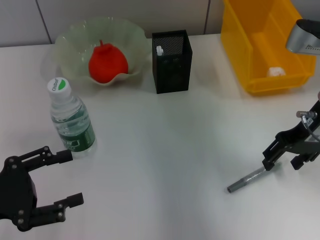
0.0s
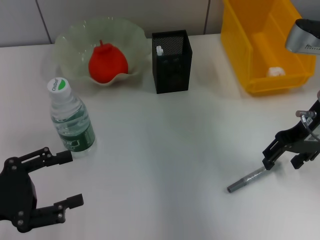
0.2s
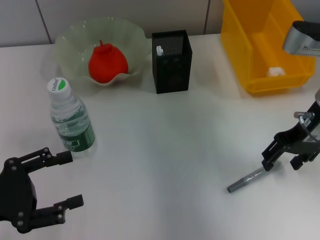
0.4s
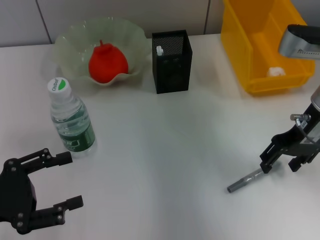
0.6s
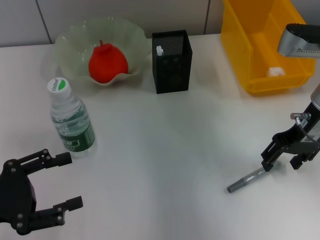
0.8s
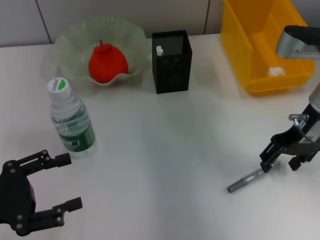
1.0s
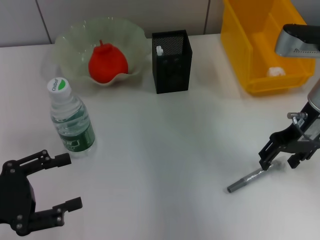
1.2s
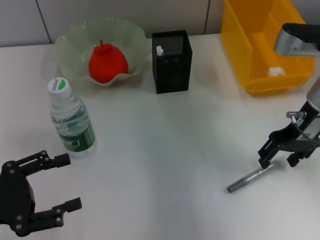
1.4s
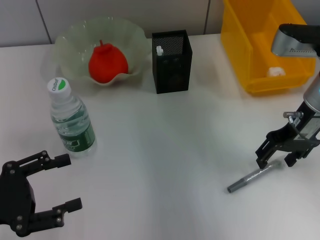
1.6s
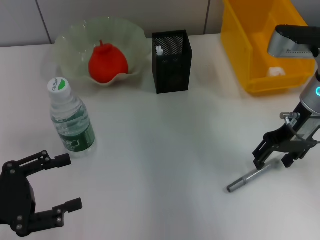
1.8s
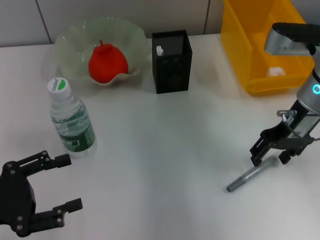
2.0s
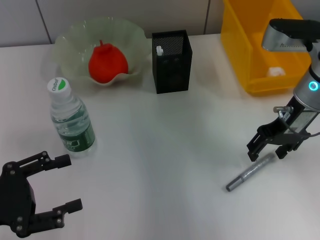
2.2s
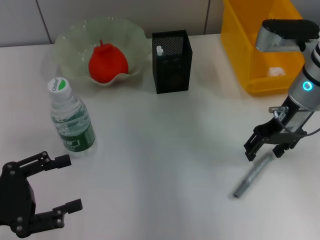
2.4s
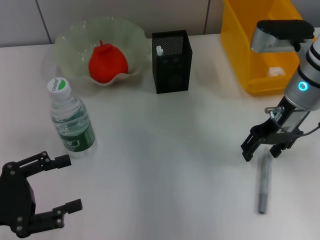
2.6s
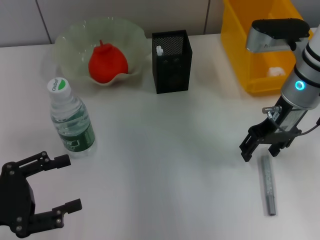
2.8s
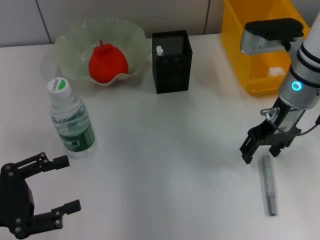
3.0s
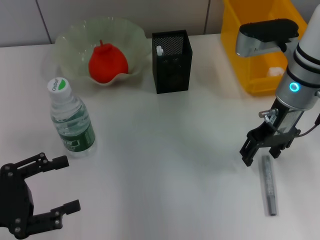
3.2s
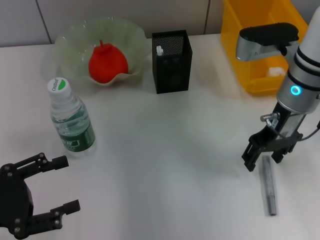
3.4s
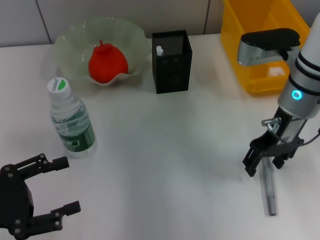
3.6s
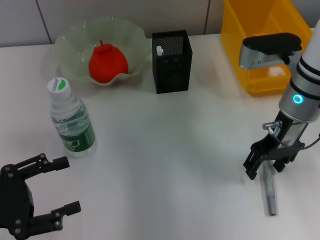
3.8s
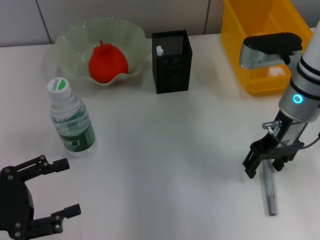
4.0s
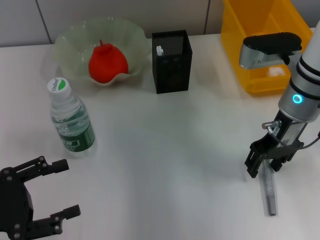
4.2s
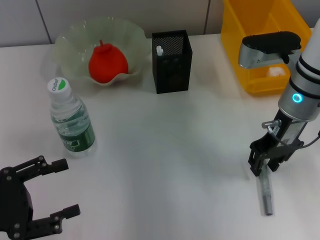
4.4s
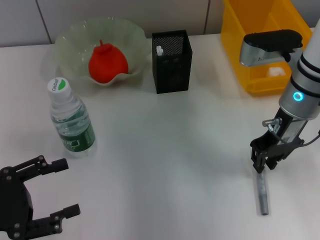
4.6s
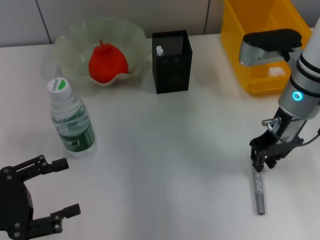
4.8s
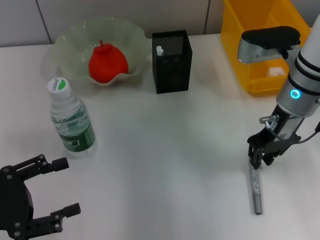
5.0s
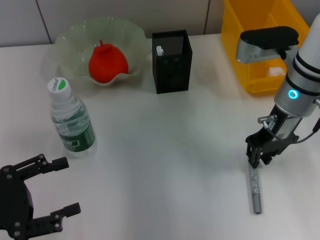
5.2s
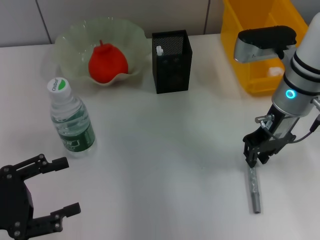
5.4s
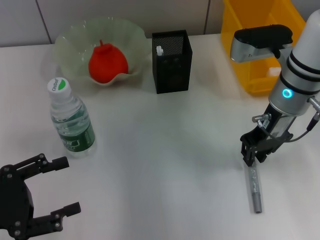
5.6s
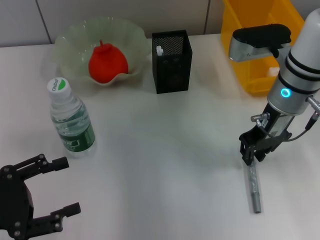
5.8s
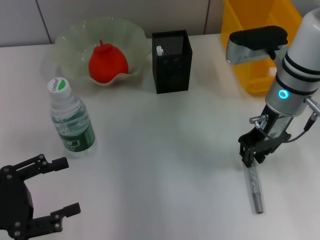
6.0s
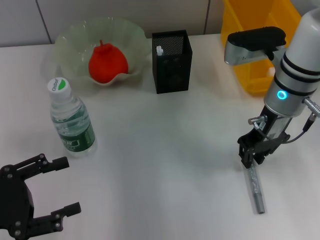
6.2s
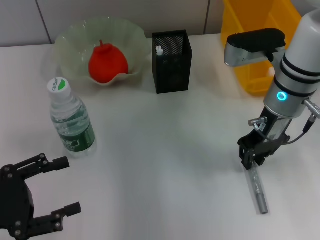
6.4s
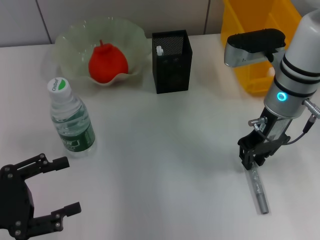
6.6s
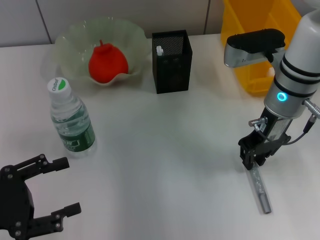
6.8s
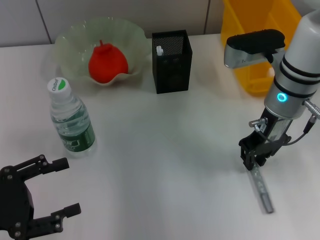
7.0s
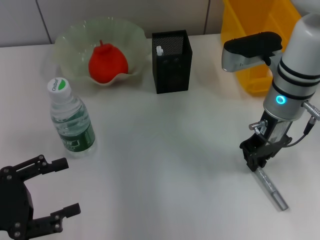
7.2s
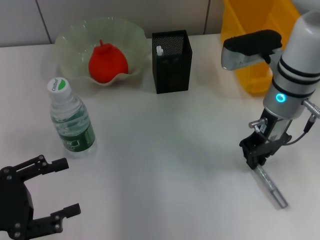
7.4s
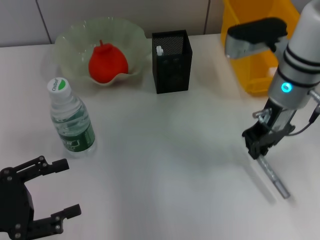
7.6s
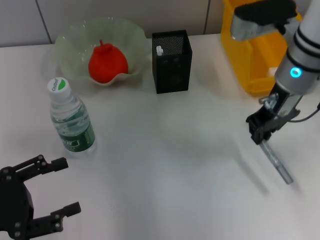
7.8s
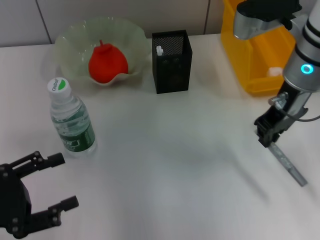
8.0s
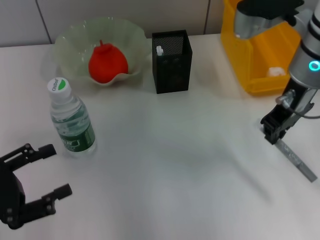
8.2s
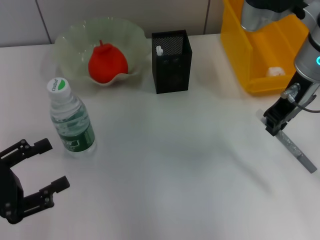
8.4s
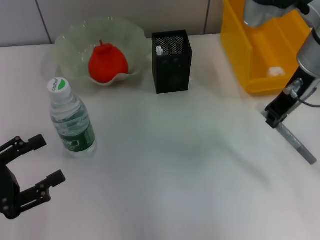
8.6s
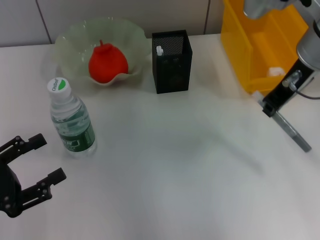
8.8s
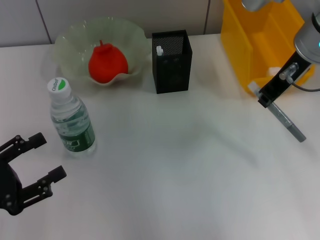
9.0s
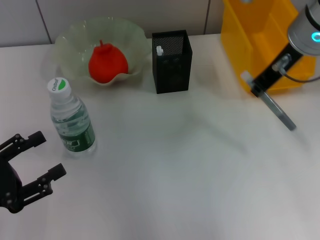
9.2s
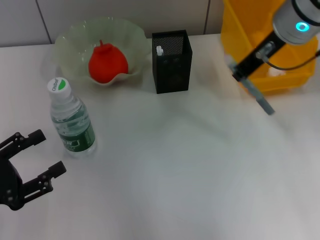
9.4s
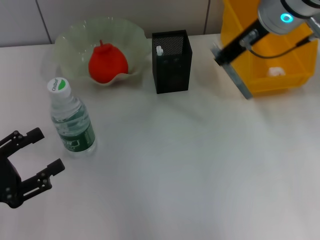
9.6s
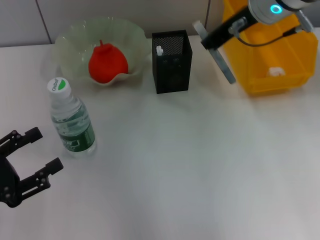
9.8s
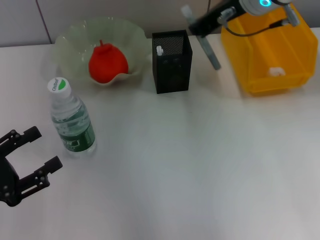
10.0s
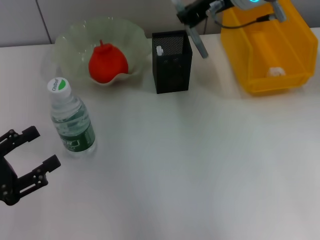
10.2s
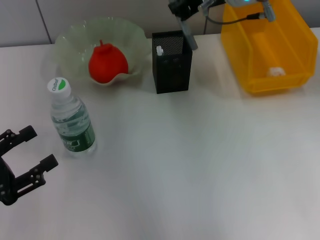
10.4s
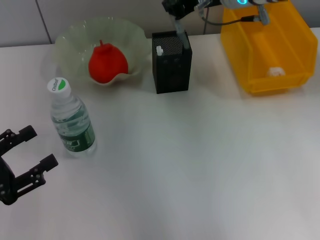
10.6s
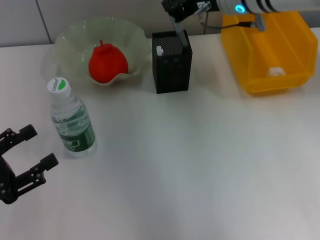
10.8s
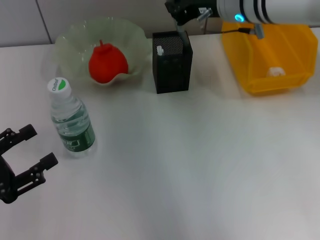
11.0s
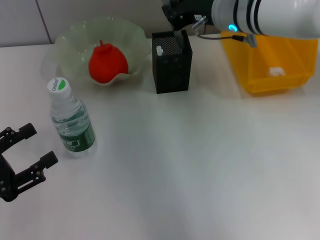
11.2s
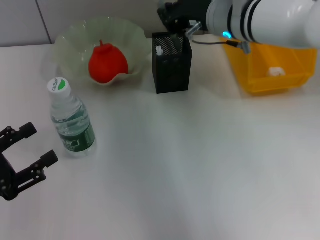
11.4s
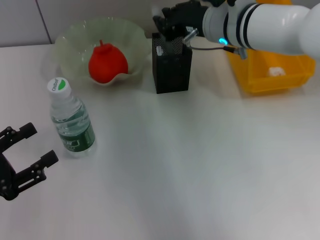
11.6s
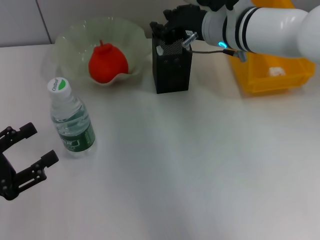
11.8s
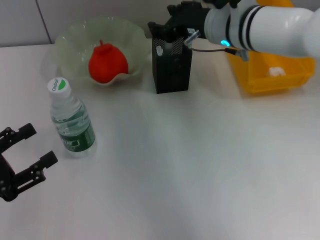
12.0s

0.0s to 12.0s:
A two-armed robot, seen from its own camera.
Step, 0.0s to 7.0s: Grab the gray glue with the right hand.
Step, 7.4s to 11.8s: Place the gray glue into the pen holder with the right hand.
0.0s to 3.0s: The grippers stay close to where they were, moving slightly.
3.0s to 4.4s: The grippers stay close to where they were, moving slightly.
4.4s to 6.0s: The right gripper closes its fingers.
6.0s to 7.6s: The grippers make only small movements.
7.6s to 9.0s: The right gripper is displaced upward by approximately 10 cm.
9.0s to 10.4s: The right gripper moves to the left and forward, roughly 10 cm.
10.4s to 12.0s: The right gripper shifts roughly 5 cm downward, and opens its fingers.

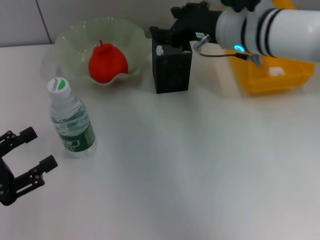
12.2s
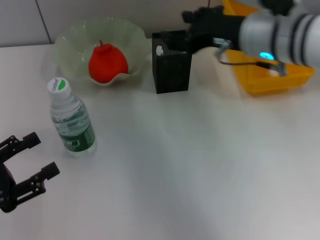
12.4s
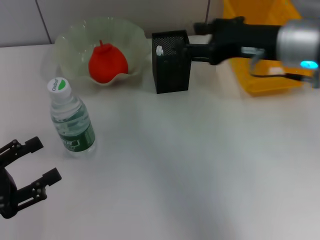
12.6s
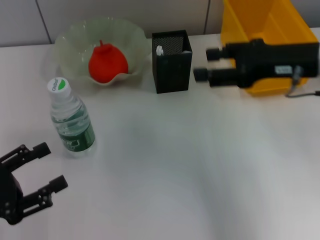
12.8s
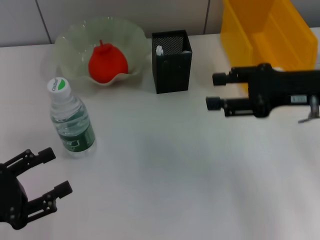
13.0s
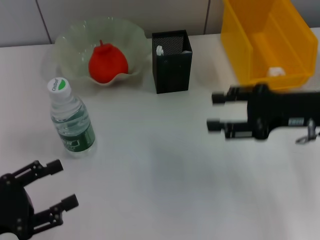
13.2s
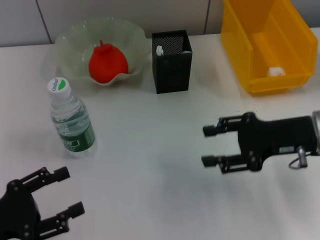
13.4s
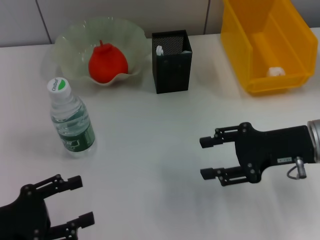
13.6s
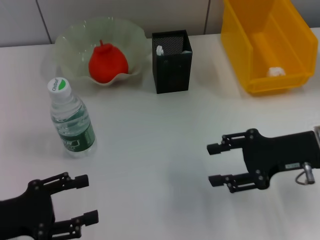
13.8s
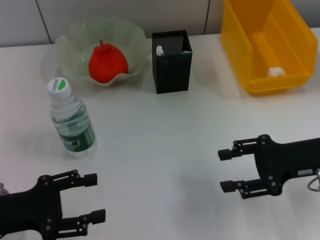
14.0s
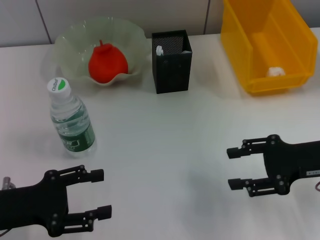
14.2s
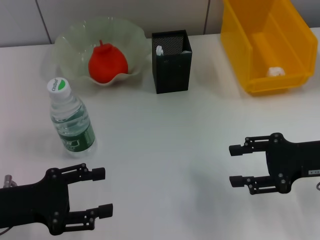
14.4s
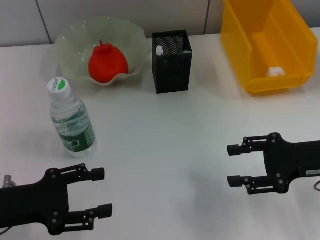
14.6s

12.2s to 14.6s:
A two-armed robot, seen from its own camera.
12.2s to 13.4s: The right gripper shifts some 15 cm to the right, backward and downward.
13.4s to 14.6s: The left gripper shifts by approximately 5 cm.
